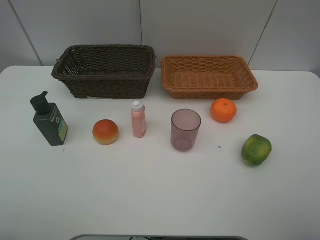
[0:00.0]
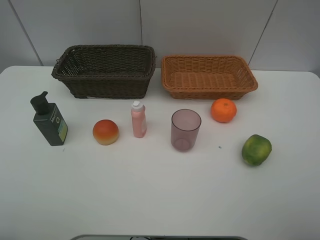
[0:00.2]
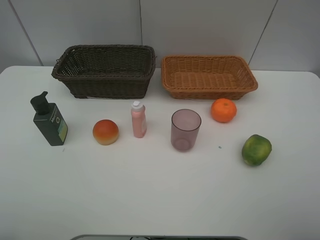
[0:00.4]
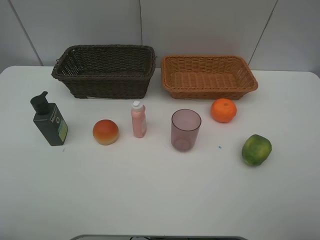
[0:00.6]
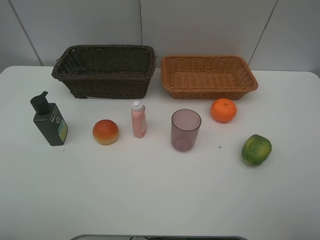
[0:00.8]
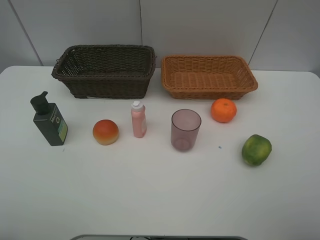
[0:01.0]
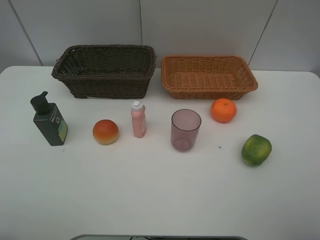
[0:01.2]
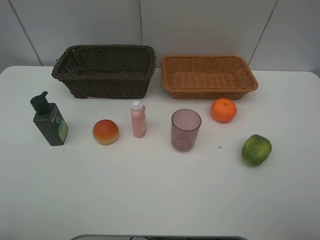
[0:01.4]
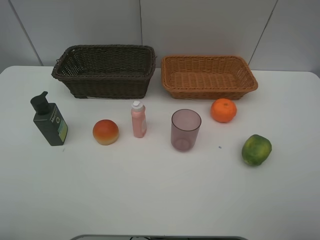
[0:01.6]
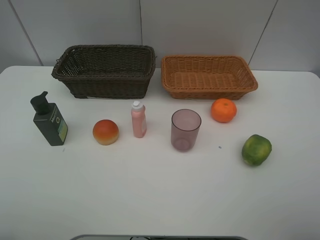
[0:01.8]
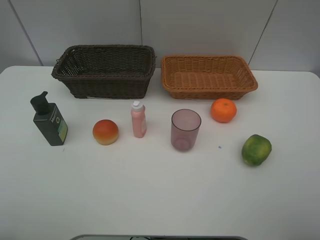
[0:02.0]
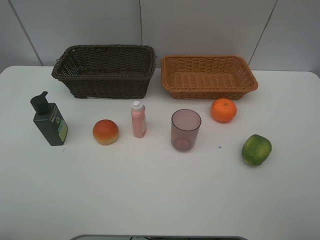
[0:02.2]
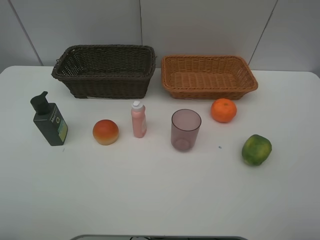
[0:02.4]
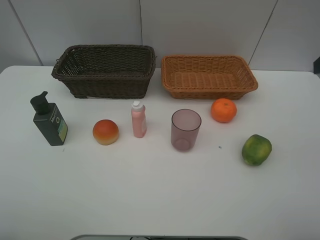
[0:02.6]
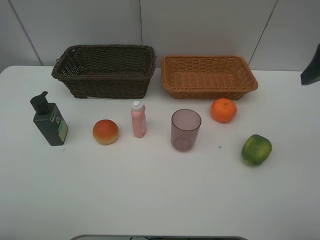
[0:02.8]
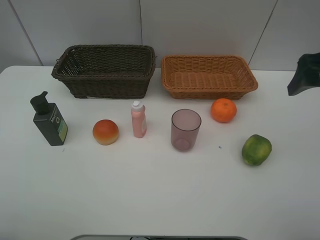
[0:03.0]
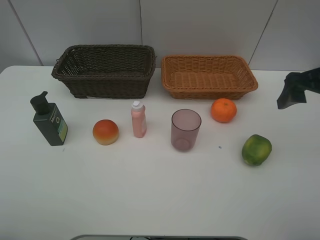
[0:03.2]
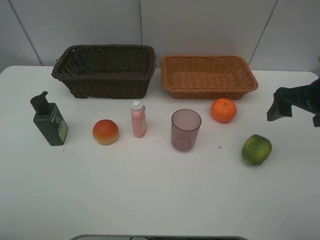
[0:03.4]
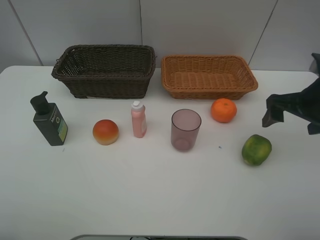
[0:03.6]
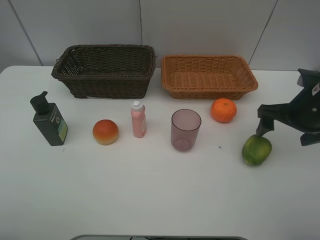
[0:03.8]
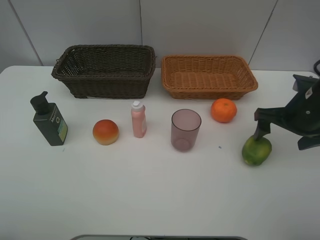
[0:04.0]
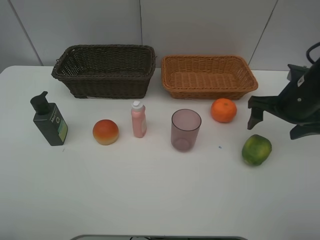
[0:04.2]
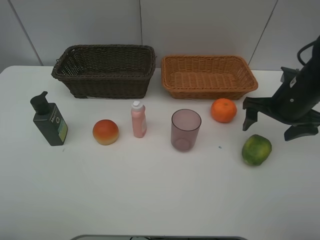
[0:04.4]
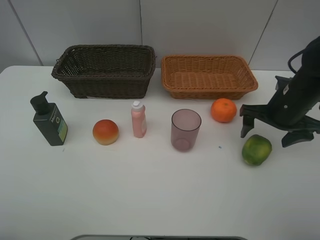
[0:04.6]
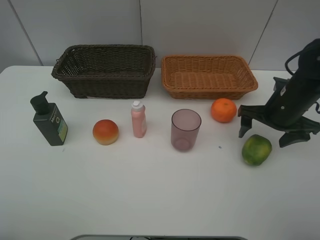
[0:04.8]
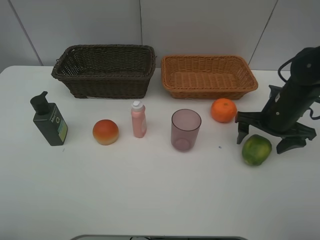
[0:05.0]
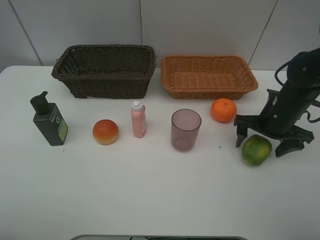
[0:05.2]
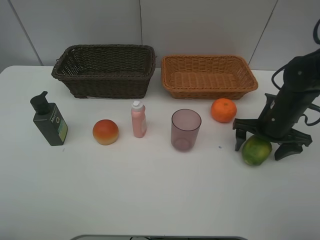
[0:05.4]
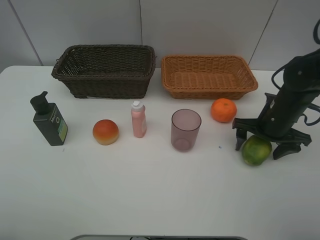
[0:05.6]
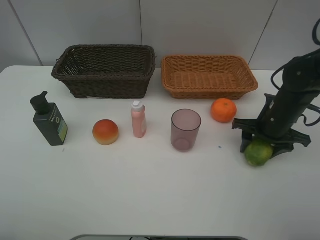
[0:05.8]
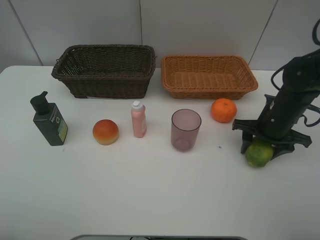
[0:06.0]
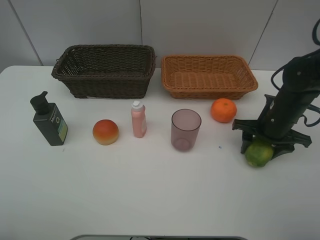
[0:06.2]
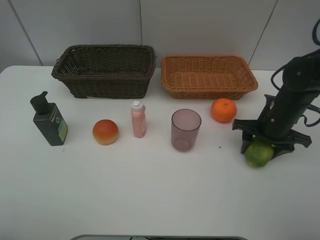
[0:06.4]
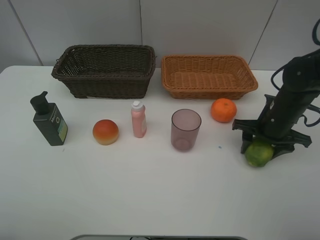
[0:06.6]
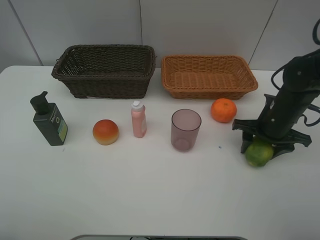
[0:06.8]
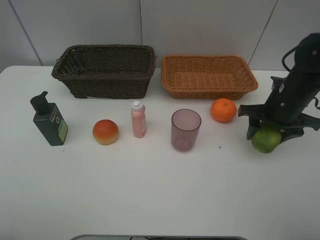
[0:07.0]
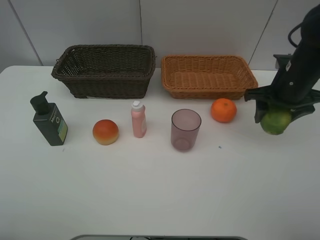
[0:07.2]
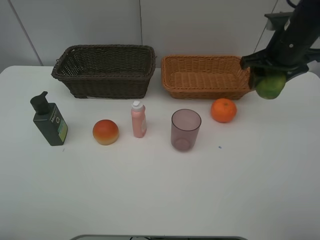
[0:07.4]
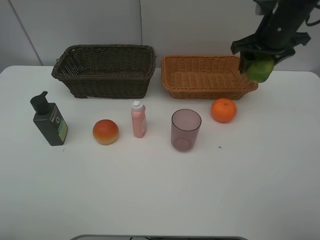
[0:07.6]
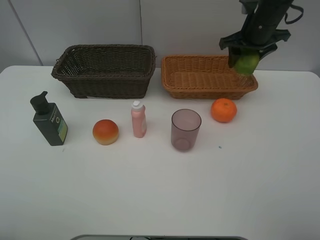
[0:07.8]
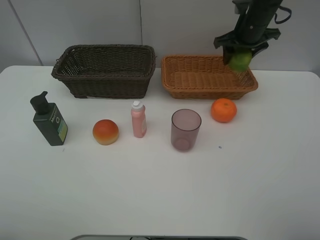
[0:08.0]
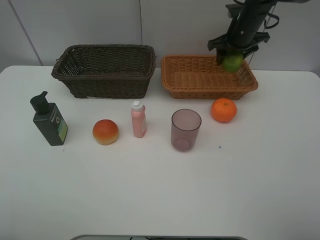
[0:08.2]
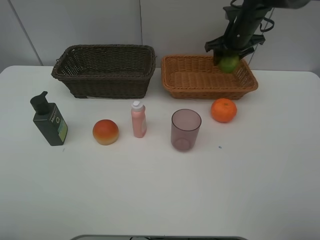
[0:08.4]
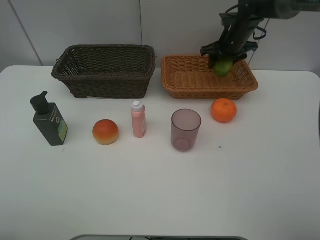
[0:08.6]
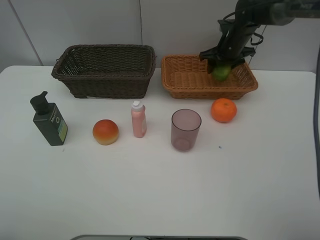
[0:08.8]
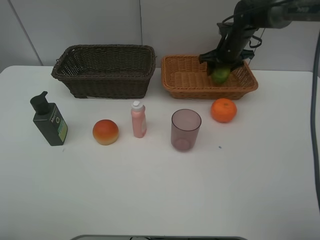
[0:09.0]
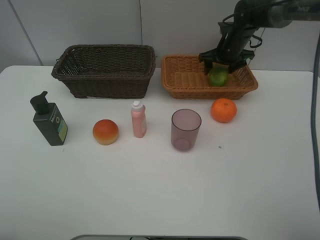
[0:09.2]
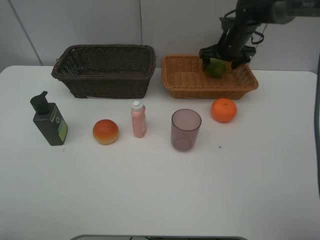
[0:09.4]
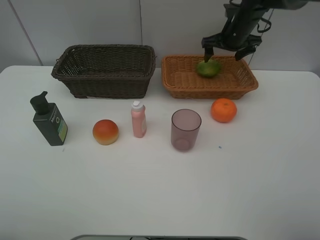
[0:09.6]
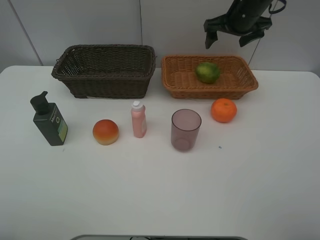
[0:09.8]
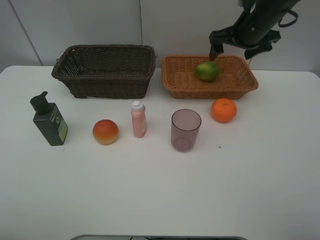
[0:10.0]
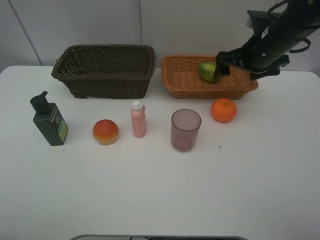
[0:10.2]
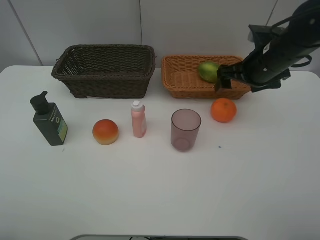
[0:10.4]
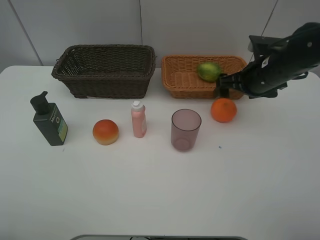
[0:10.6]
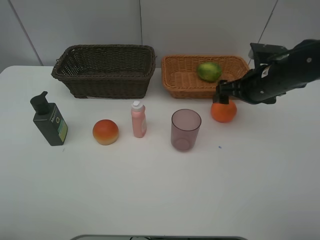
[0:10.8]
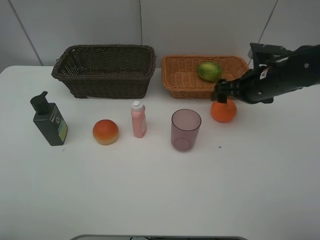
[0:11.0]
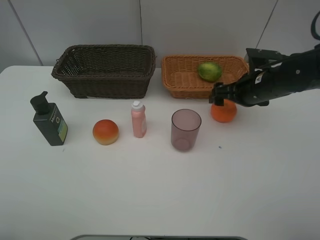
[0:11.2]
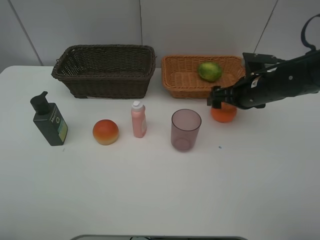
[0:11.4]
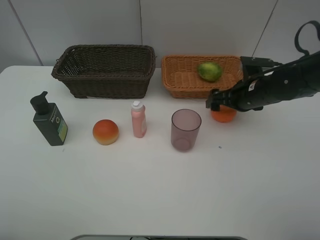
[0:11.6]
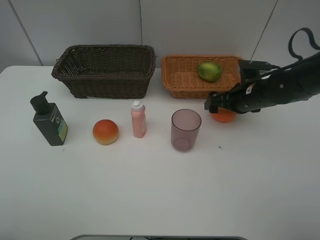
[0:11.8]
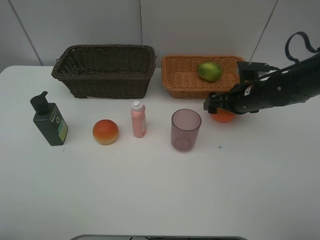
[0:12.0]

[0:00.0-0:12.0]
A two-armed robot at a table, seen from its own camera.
Task of the whole recording: place multiple objects separately in different baskets.
0:00.0 to 0:01.6: The two grippers keep their place.
0:01.6 to 0:03.0: The right gripper goes approximately 25 cm forward.
0:03.0 to 0:04.4: The right gripper moves downward, about 10 cm.
0:04.4 to 0:06.0: The right gripper travels downward by approximately 5 cm, and closes its fingers.
0:06.0 to 0:07.6: The right gripper goes some 20 cm upward and forward.
0:07.6 to 0:09.0: The right gripper shifts roughly 15 cm forward and downward.
0:09.0 to 0:10.4: The right gripper shifts about 15 cm backward, and opens.
0:10.4 to 0:12.0: The right gripper travels downward by some 10 cm.

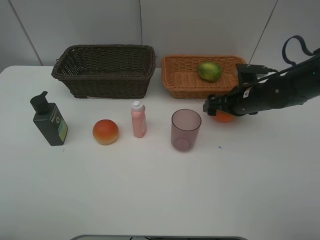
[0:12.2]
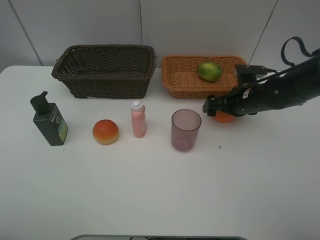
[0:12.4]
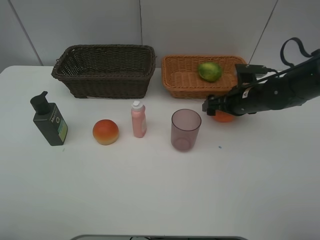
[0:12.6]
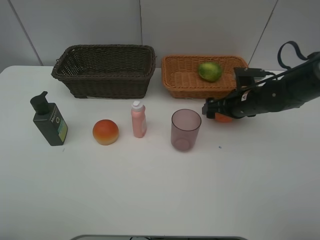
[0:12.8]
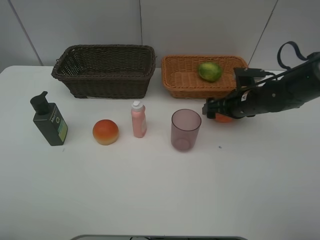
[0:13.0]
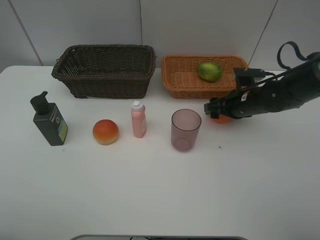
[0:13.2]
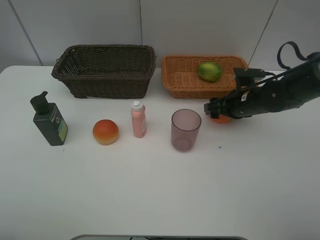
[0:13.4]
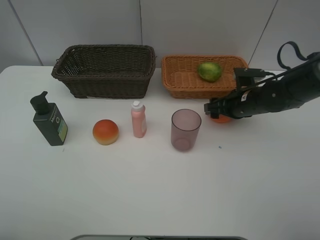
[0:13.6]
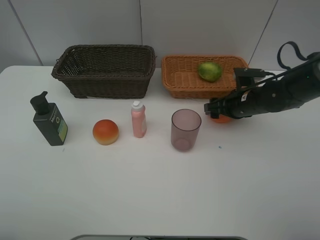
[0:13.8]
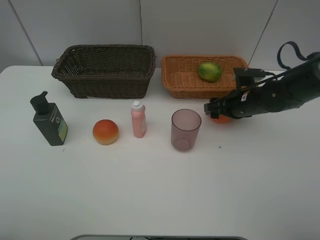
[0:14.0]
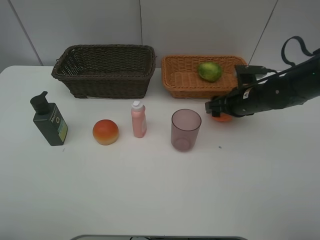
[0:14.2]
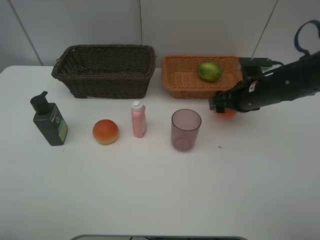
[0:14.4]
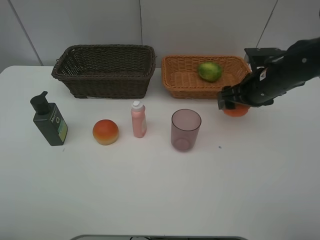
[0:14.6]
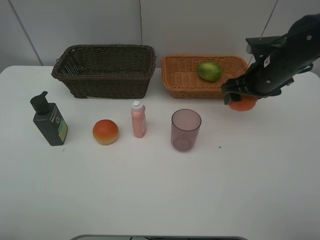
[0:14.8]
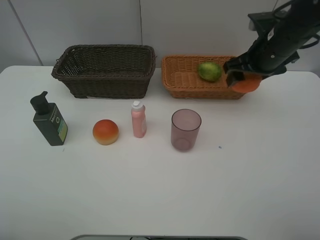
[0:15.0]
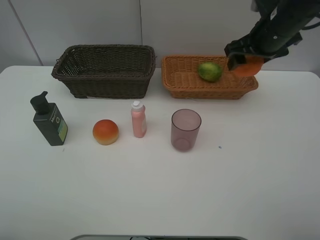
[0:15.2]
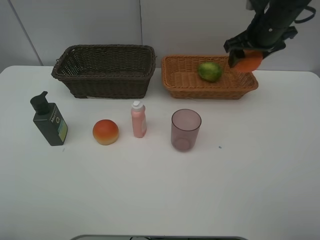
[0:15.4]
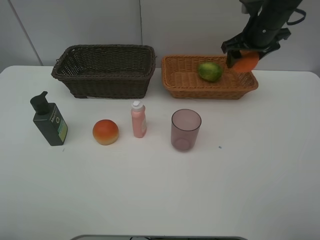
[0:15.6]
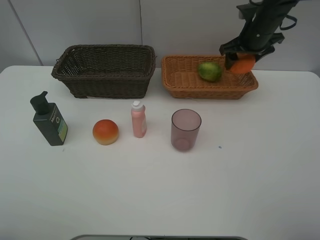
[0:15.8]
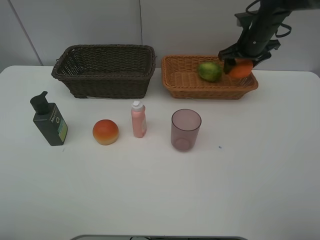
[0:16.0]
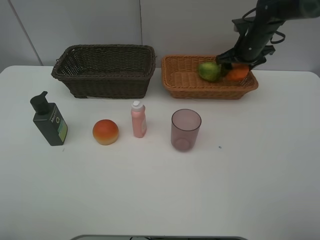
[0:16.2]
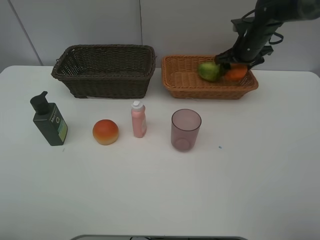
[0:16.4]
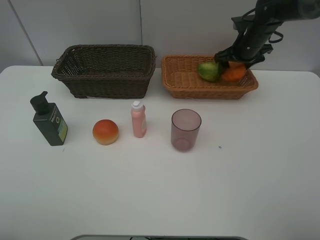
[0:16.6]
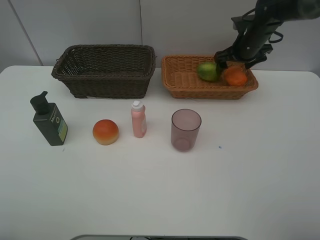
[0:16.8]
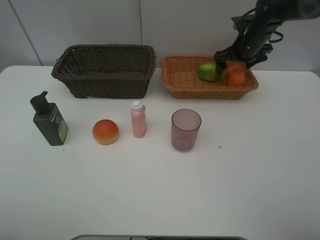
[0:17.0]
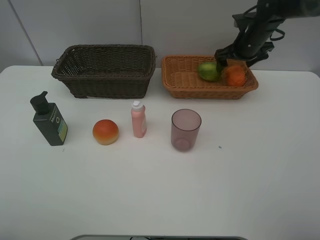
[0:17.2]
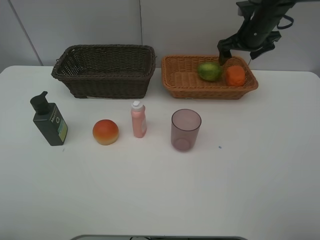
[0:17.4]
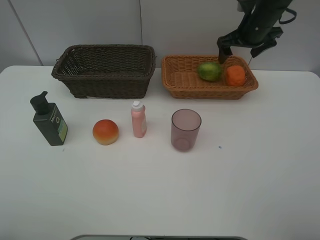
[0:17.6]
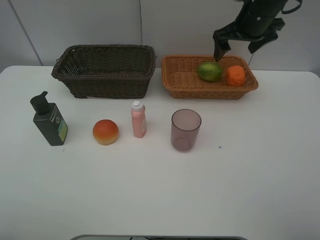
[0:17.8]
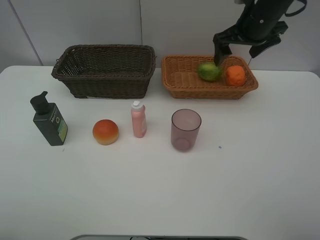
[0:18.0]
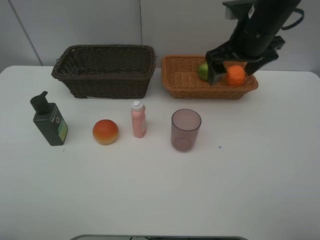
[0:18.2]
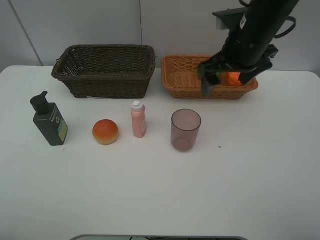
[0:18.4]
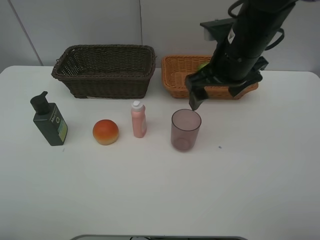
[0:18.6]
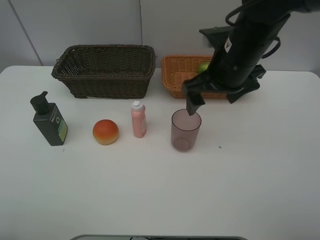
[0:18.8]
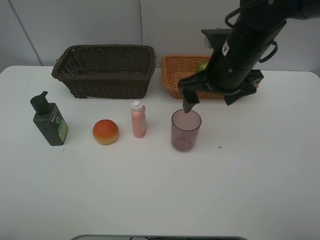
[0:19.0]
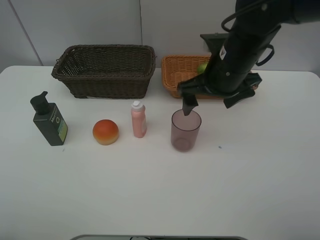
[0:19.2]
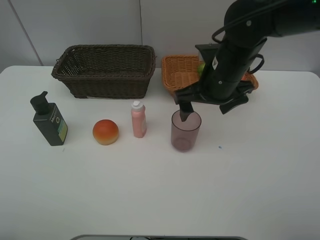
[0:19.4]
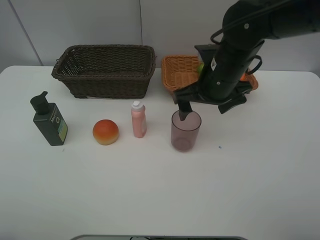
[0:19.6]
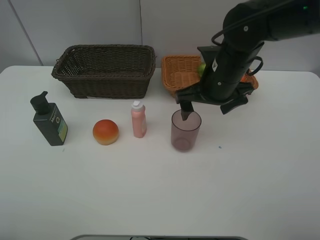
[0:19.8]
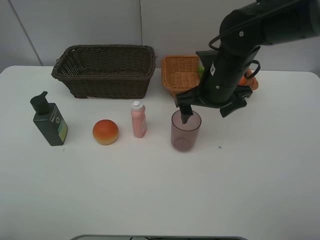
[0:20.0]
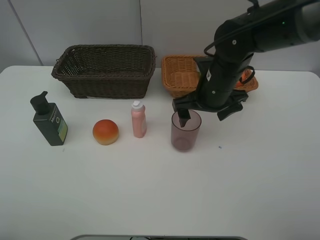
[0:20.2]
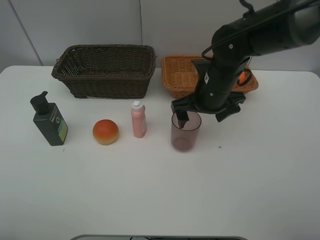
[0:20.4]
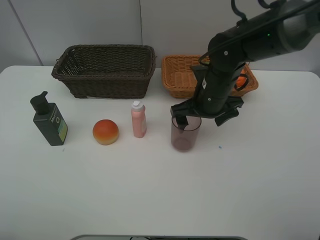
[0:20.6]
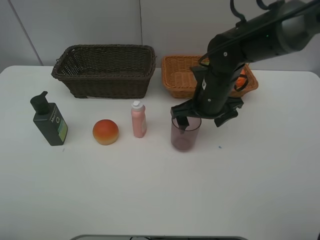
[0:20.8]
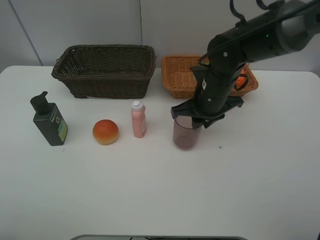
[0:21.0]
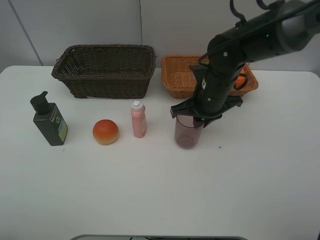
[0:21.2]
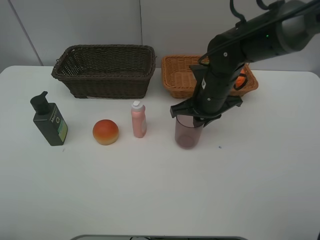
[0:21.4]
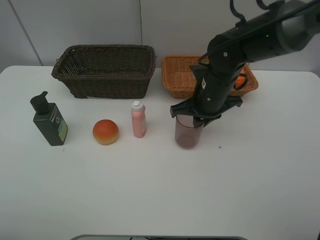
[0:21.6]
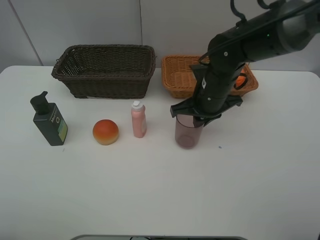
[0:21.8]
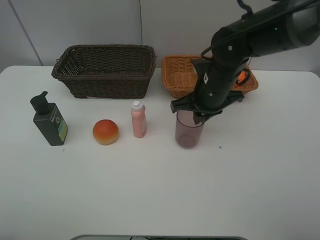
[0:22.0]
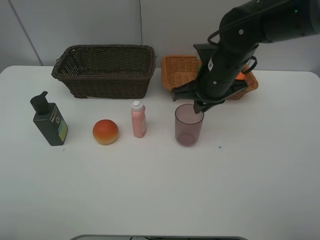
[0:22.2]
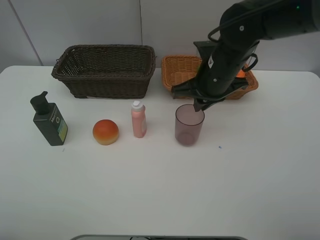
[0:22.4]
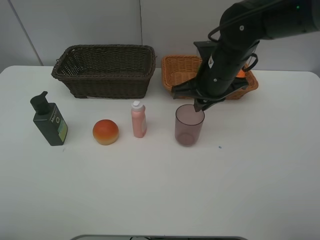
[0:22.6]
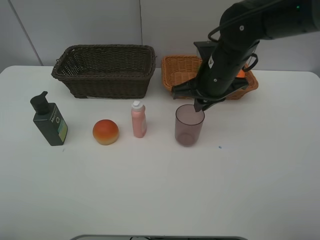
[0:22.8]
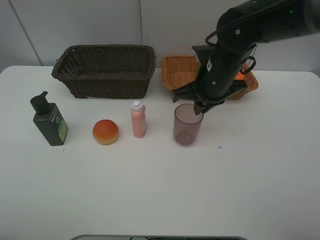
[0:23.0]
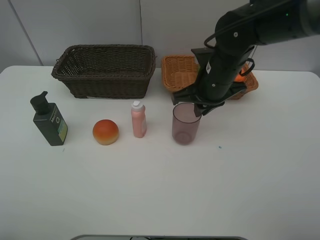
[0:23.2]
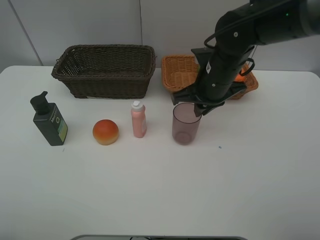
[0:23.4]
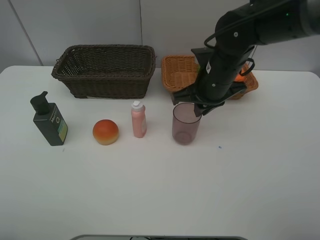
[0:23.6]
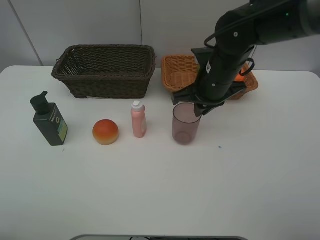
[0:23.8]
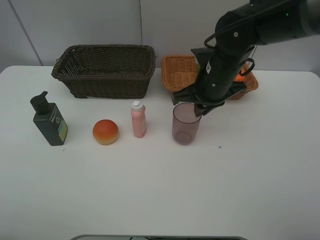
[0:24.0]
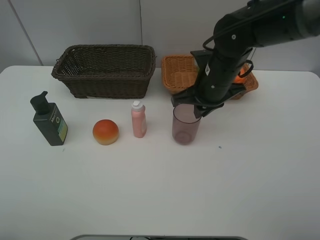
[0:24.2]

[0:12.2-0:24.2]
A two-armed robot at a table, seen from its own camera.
Task of the whole recording: place multiple objects separately in different baskets.
0:12.2 to 0:13.8: The two grippers keep their place.
0:13.8 to 0:15.2: The right gripper travels upward by approximately 15 cm.
0:15.2 to 0:16.6: The right gripper heads forward and downward, covering roughly 15 cm.
0:16.6 to 0:18.2: The right gripper goes about 20 cm backward, upward and to the left.
0:18.2 to 0:19.8: The right gripper moves downward and to the left, some 10 cm.
0:19.8 to 0:21.2: The right gripper closes its fingers.
0:21.2 to 0:24.2: There are only small adjustments of the grippers.
